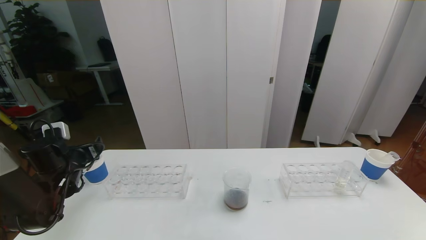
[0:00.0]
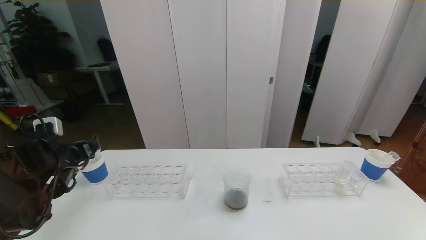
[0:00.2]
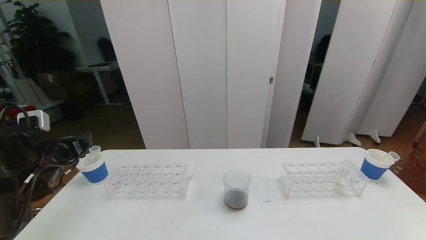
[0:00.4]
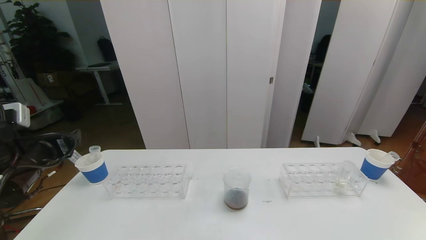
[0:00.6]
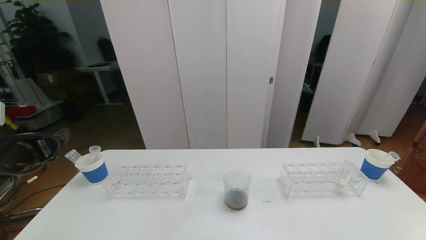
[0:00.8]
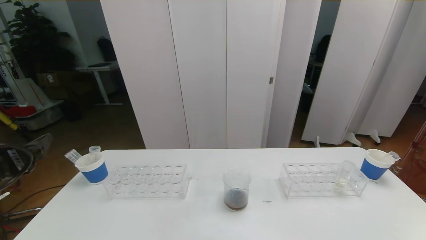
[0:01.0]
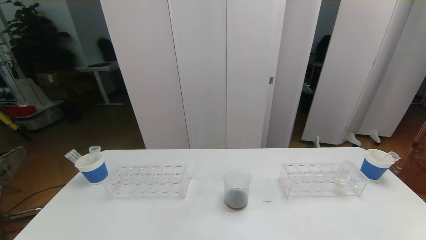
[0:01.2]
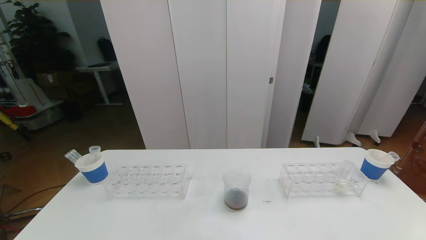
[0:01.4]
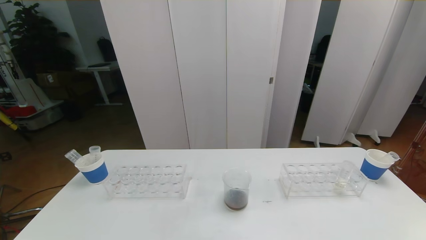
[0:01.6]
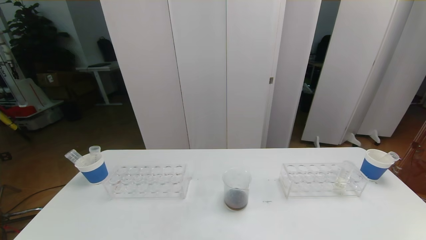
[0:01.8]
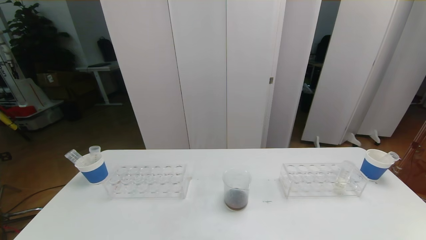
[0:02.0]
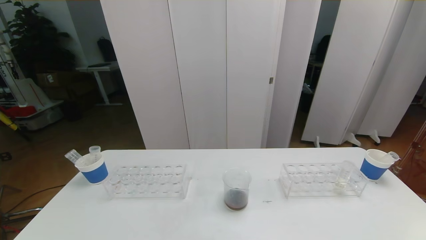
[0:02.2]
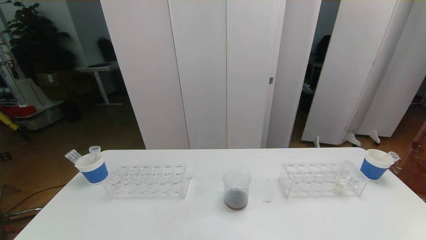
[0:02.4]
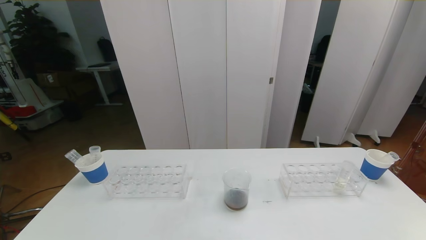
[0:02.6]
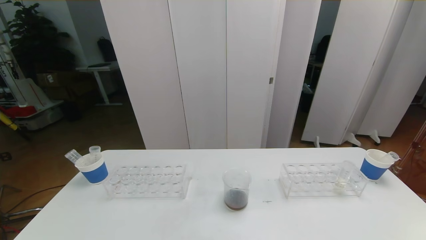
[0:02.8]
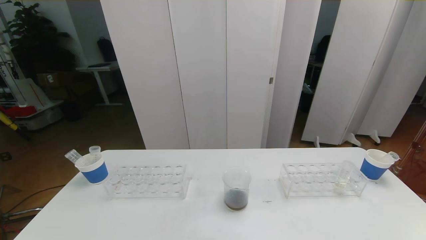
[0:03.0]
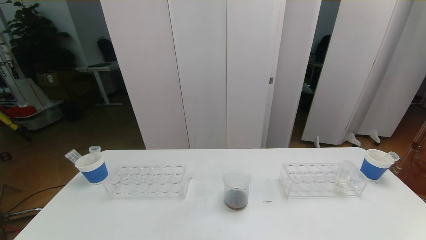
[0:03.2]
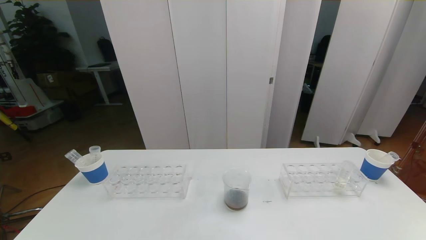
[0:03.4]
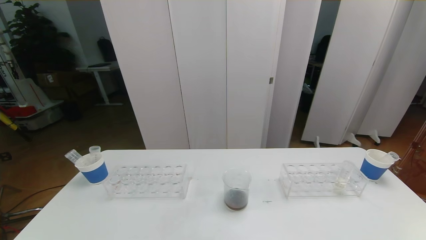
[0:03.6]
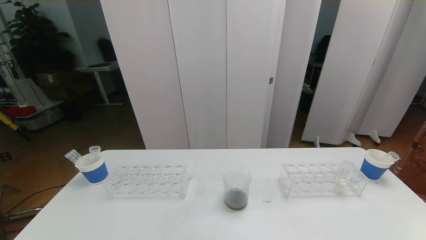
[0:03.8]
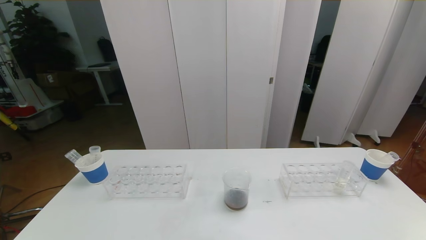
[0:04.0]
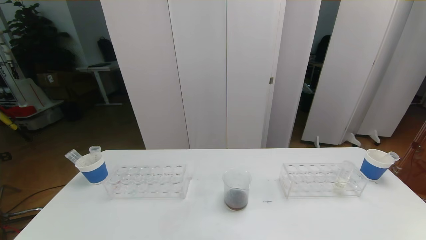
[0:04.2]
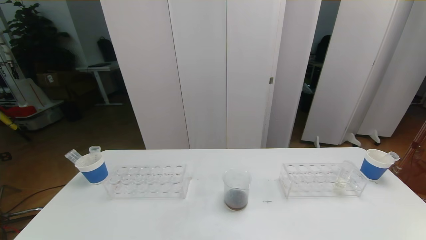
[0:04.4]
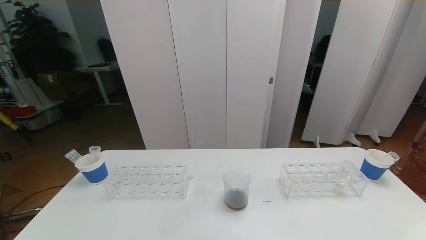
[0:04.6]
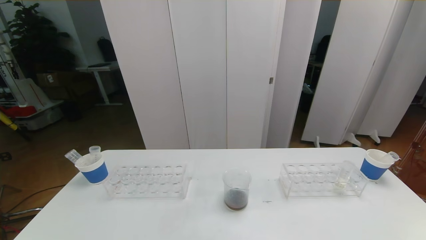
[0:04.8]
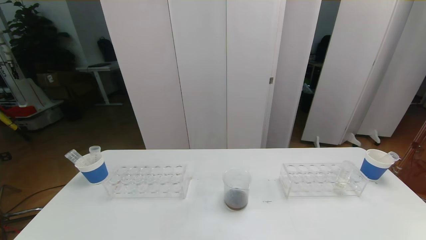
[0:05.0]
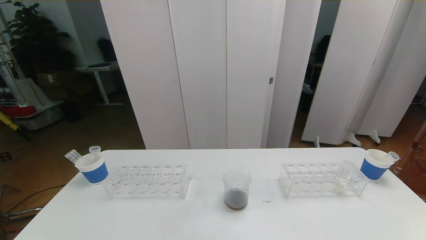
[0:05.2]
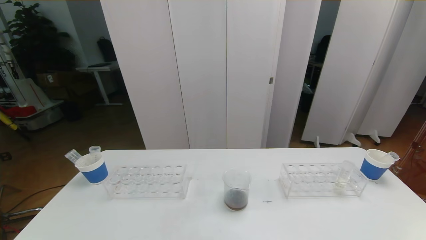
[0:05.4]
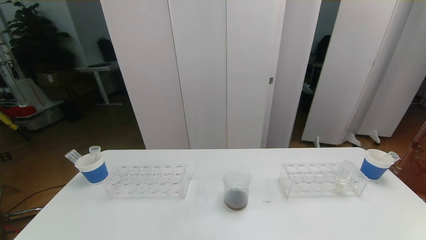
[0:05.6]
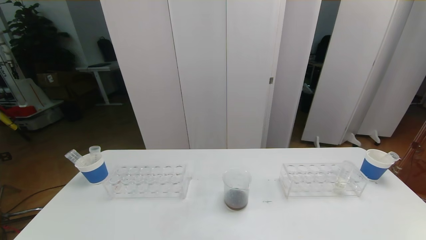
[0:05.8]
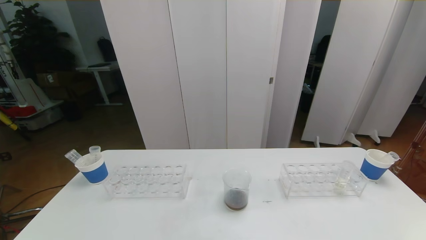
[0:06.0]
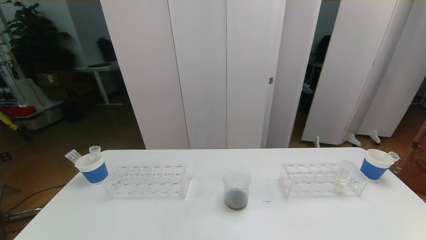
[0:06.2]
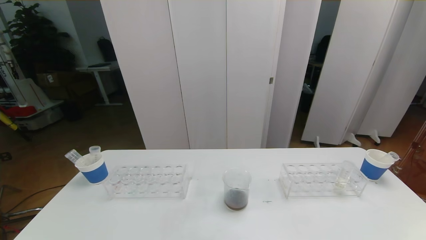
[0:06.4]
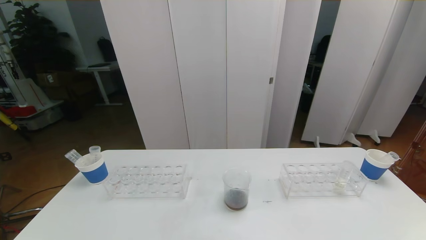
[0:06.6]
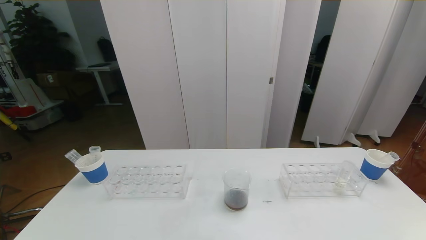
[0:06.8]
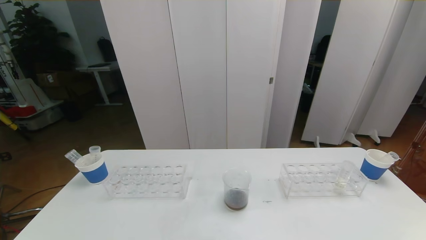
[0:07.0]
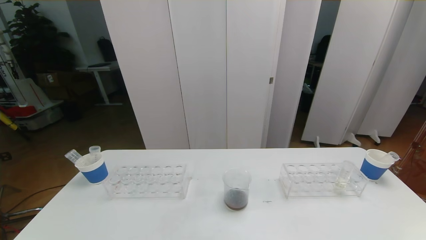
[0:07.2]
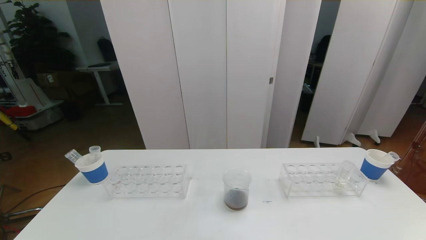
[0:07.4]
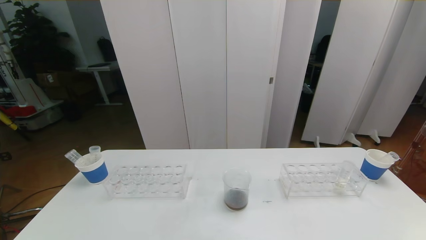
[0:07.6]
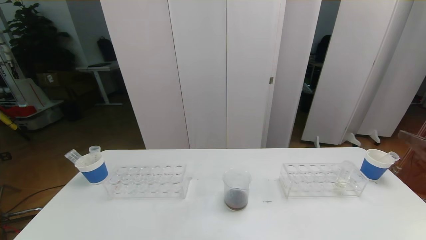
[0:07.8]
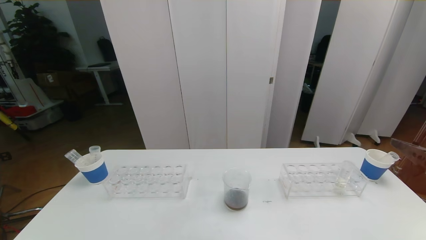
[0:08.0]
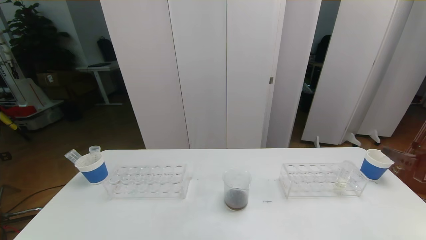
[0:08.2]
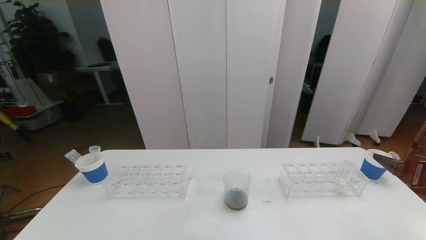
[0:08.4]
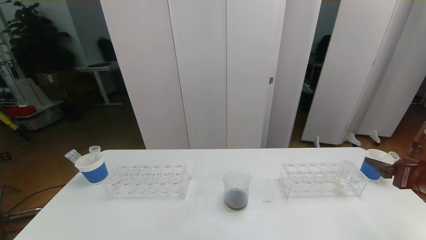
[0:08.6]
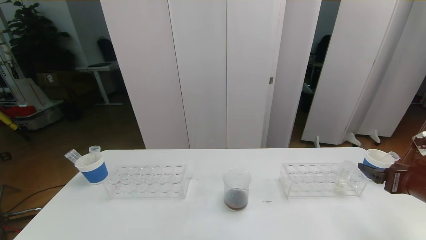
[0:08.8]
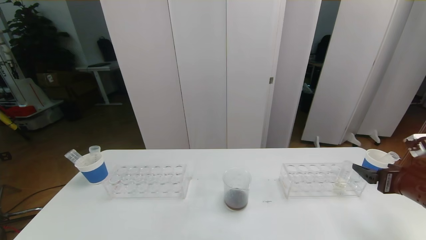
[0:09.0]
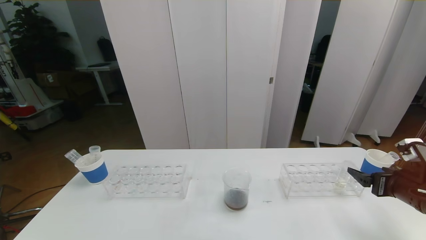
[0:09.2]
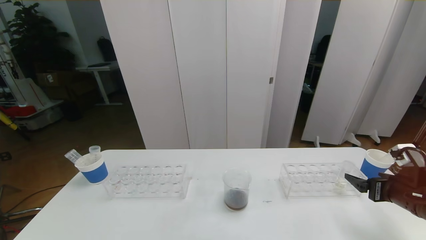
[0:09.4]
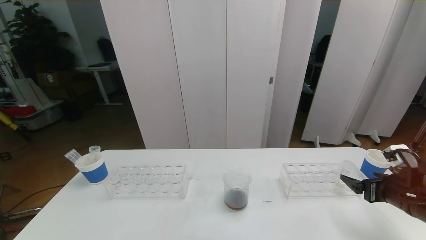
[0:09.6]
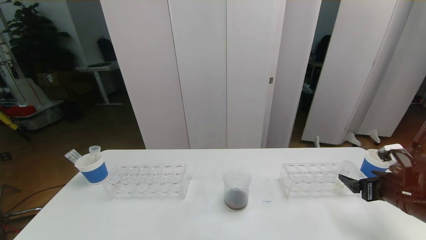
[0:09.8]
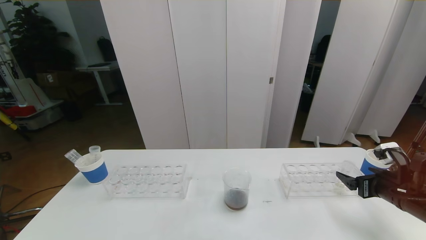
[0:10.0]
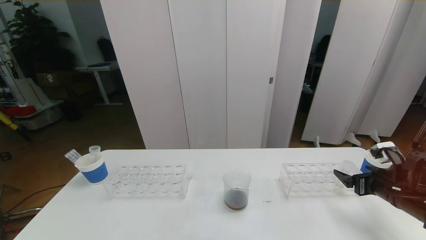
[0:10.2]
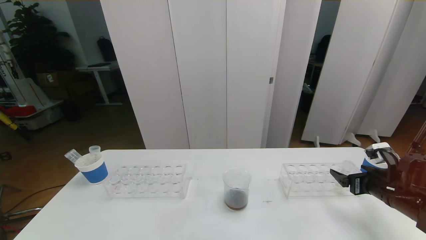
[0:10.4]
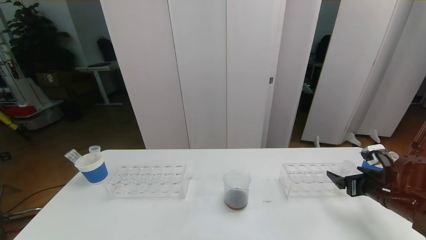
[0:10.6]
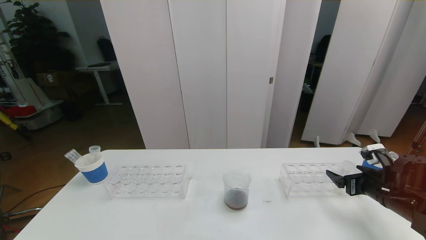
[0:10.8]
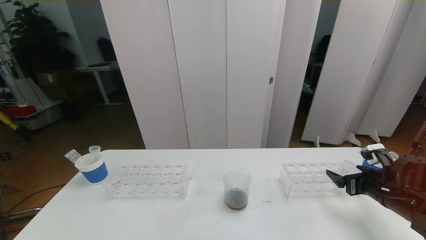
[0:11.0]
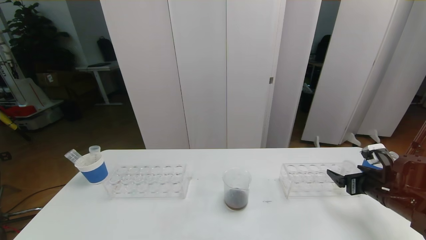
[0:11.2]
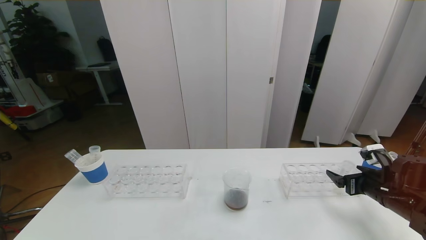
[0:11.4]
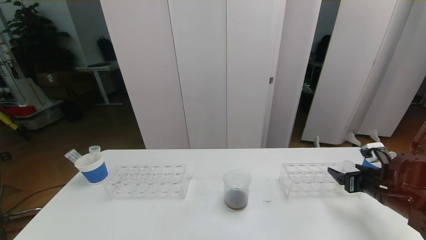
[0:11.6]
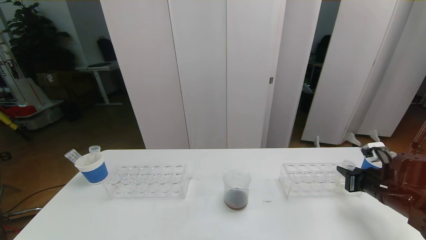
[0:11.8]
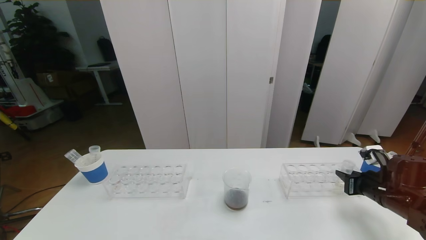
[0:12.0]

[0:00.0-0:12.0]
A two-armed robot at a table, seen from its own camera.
Task of the whole recording: pick up the test tube with red pigment the test tube with blue pigment and the test tube with white pigment by grippers and pour them into the beaker.
Step, 0.0 to 5.0 s: Pour the orange reagent into the graduated cylinder and place the test tube into the paper cup.
0.0 to 1.6 s: The left gripper heads backward and upward, covering some 35 cm.
7.6 to 9.0 s: The right gripper shifts approximately 15 cm downward and forward.
9.0 to 10.4 s: The right gripper shifts some 5 cm downward.
10.4 to 12.0 s: The right gripper closes up.

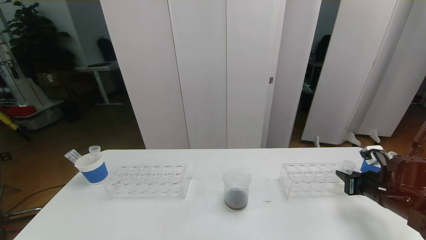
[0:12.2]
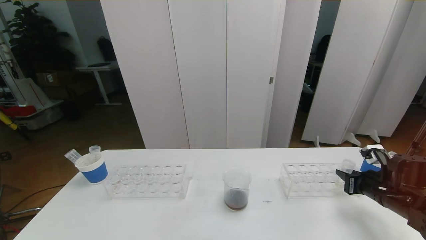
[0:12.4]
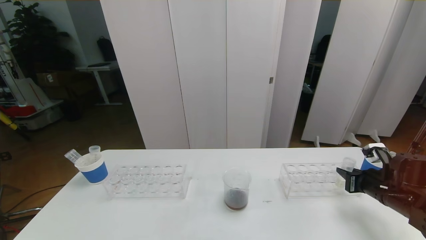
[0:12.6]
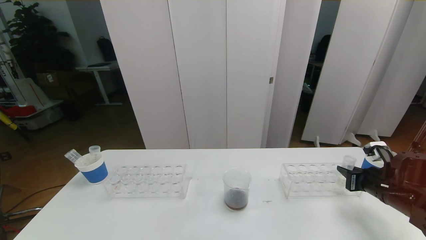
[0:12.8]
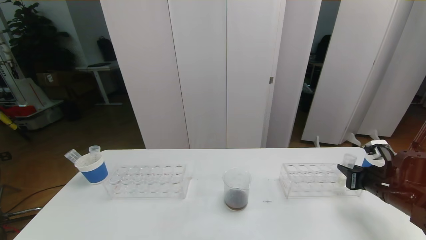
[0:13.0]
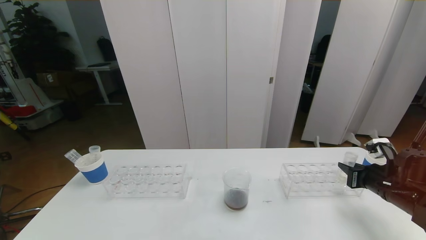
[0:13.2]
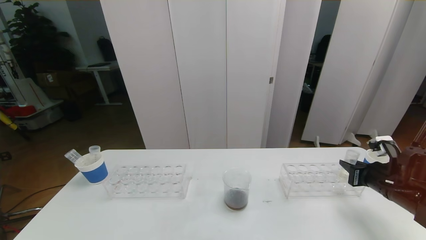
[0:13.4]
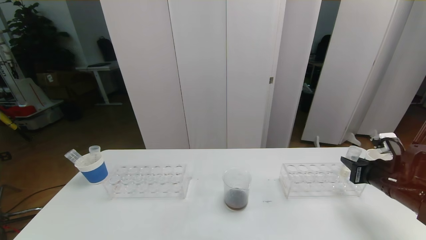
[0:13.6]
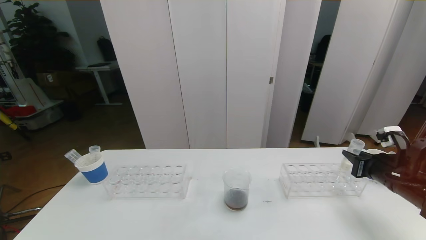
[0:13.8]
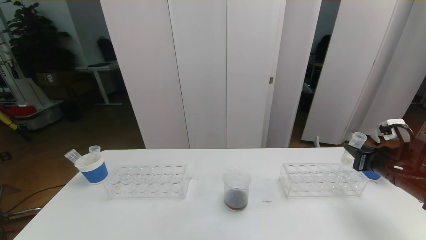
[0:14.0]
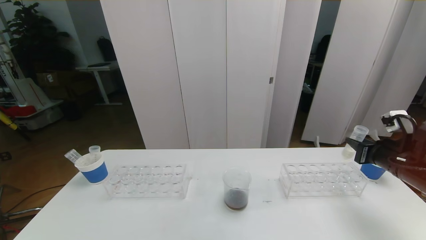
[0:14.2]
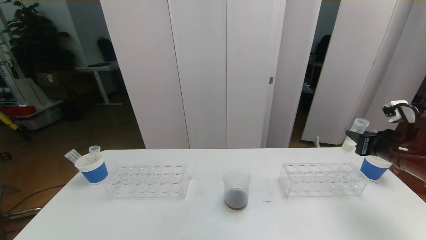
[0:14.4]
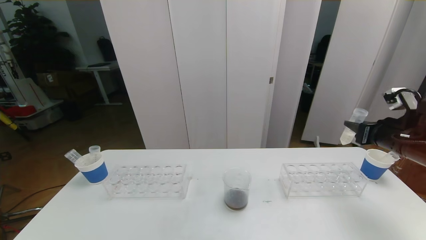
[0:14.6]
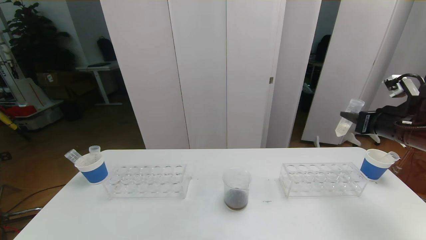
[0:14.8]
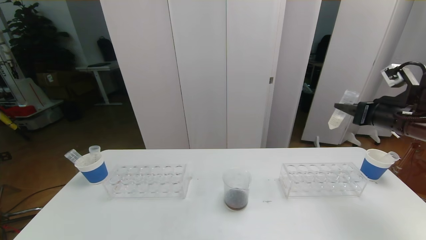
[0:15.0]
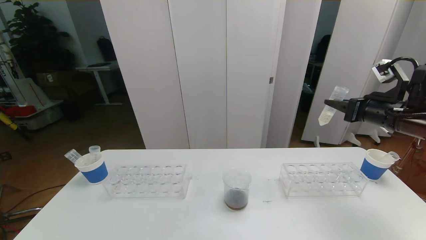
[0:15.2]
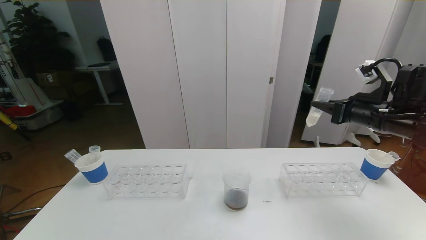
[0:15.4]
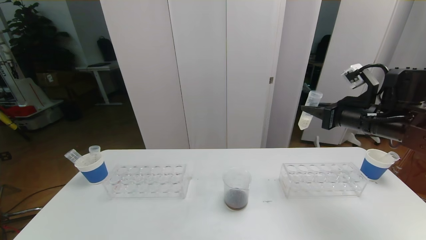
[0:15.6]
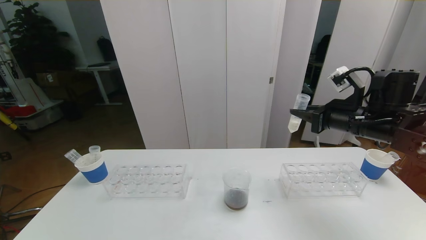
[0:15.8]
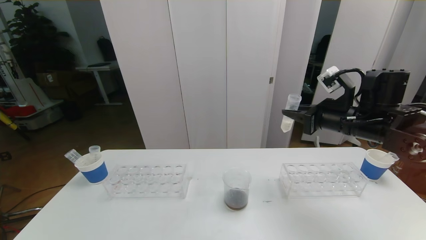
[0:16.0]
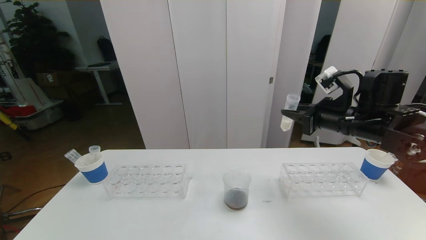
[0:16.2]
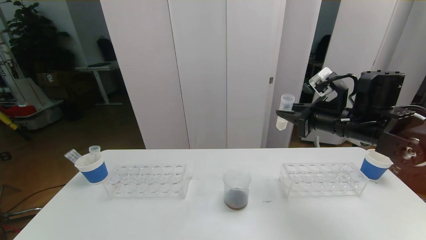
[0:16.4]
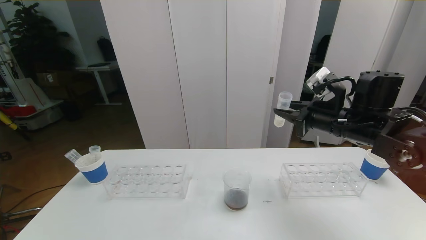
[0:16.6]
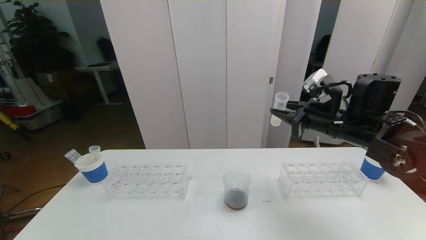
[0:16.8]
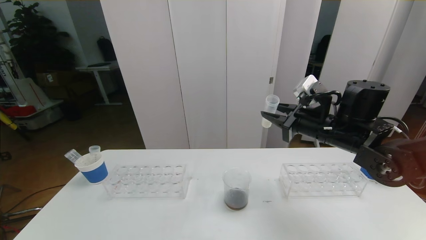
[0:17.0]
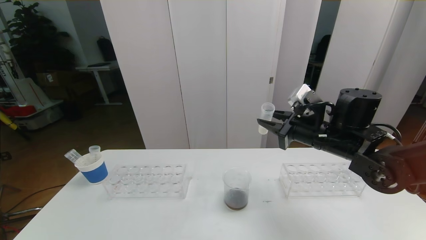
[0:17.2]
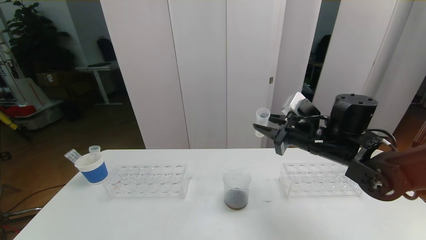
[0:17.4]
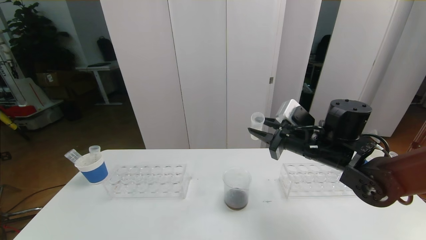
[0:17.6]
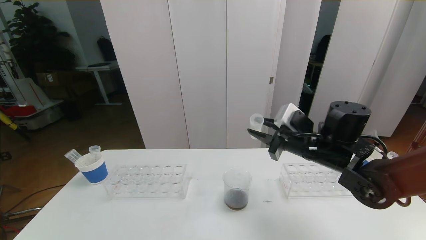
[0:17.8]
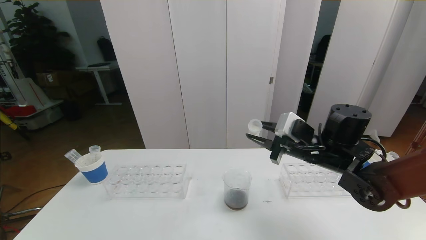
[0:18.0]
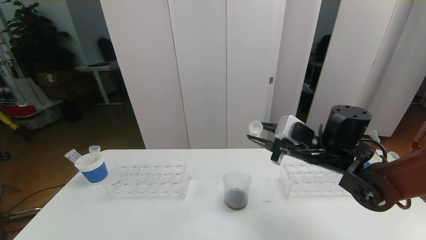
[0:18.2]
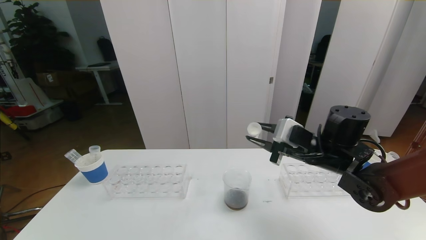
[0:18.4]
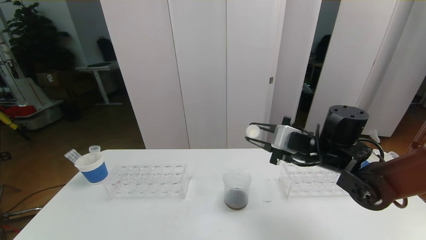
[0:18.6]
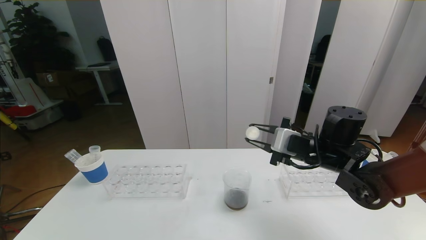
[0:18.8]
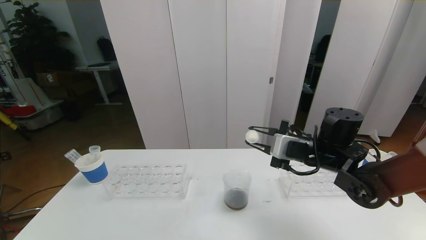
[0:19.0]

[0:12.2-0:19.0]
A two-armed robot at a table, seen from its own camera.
Task of the whole recording: pick up the test tube with red pigment the test tube with blue pigment and the test tube with white pigment by grippers and pour them into the beaker.
12.2 to 13.6 s: The grippers make only small movements.
13.6 to 15.0 s: The right gripper travels upward by roughly 15 cm.
15.0 to 16.2 s: The right gripper travels to the left by some 10 cm.
16.2 to 17.6 s: The right gripper shifts some 5 cm to the left.
